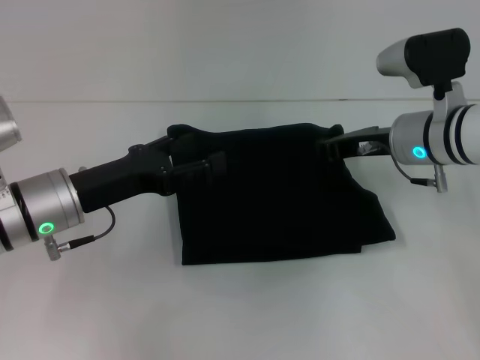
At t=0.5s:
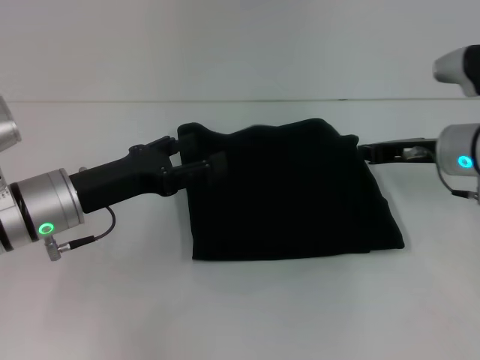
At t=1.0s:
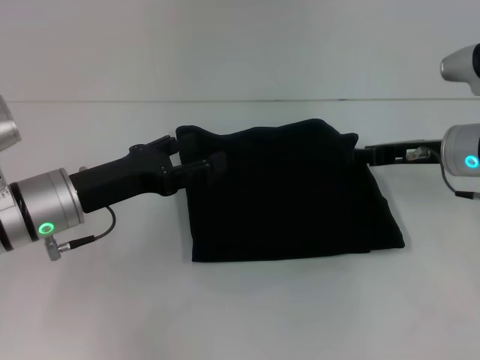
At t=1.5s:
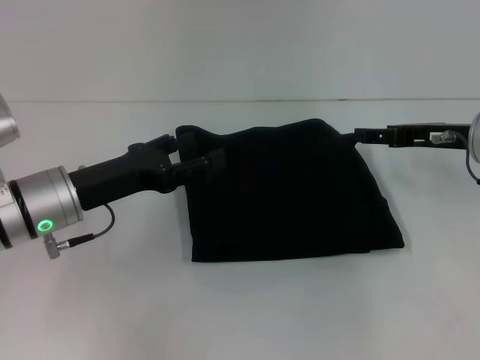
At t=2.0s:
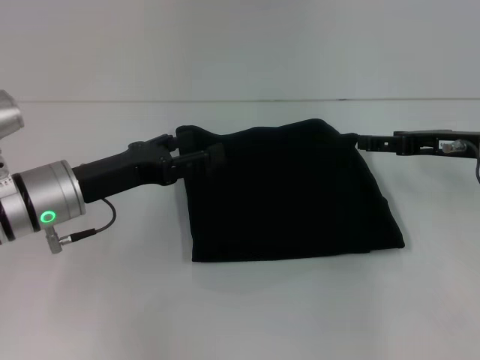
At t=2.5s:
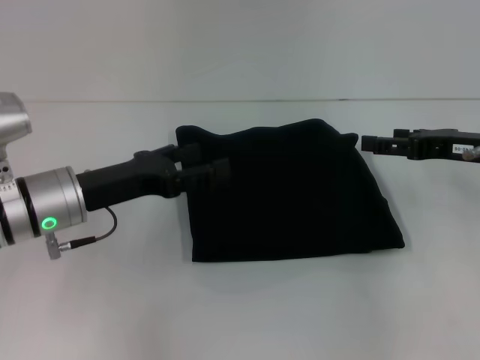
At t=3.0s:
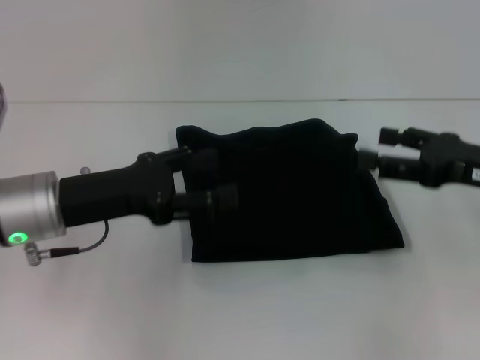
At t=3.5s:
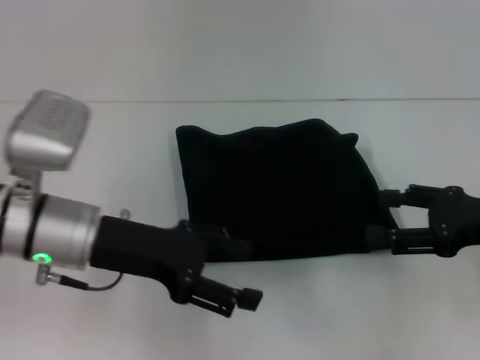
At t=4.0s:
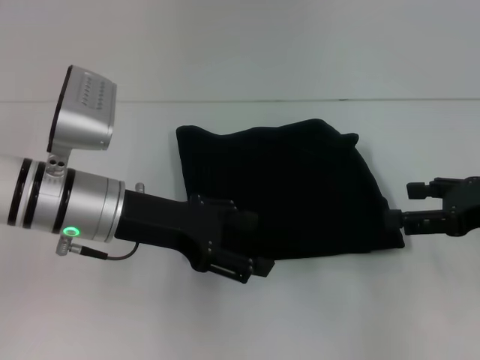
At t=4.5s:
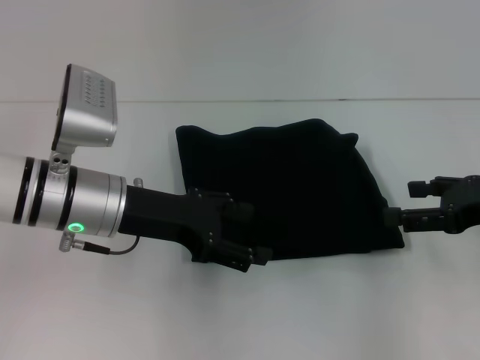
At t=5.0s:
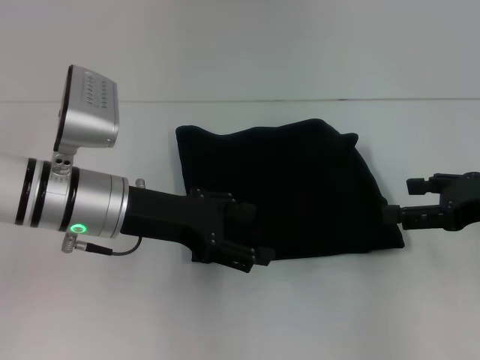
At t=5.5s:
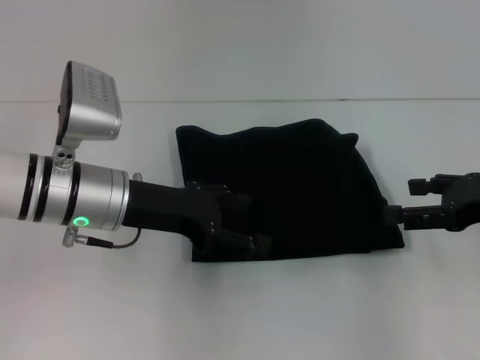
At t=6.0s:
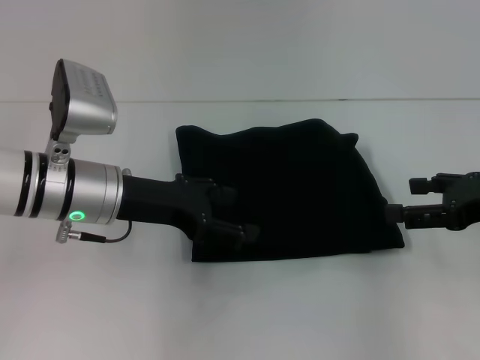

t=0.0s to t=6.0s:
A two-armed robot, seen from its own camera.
t=0.0s to t=2.0s: The right gripper shifts roughly 10 cm to the right, and opens.
t=2.0s to t=4.0s: The left gripper ends up approximately 5 cm from where it was. The right gripper shifts about 10 cm backward.
t=4.0s to t=6.0s: The grippers move only a little.
